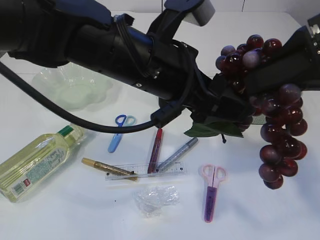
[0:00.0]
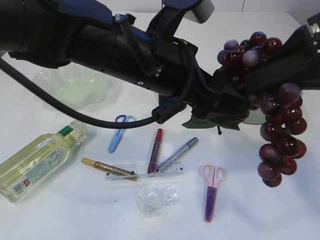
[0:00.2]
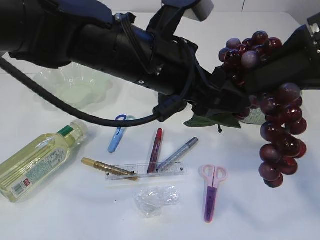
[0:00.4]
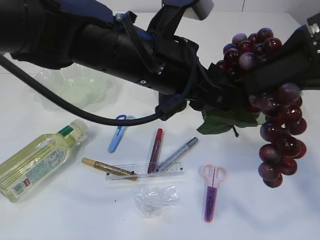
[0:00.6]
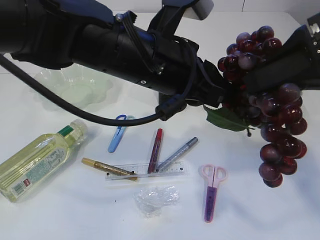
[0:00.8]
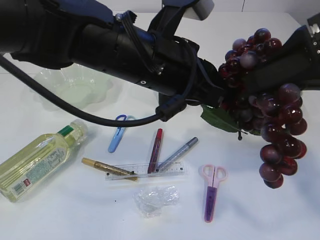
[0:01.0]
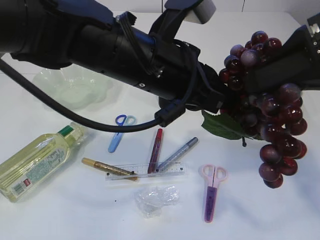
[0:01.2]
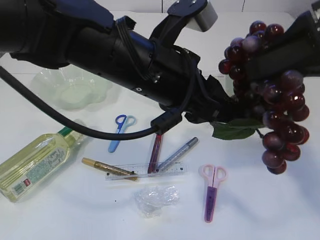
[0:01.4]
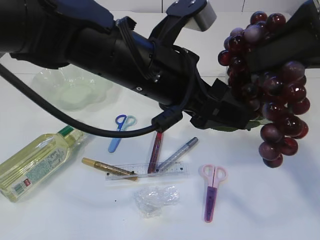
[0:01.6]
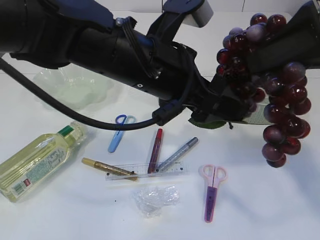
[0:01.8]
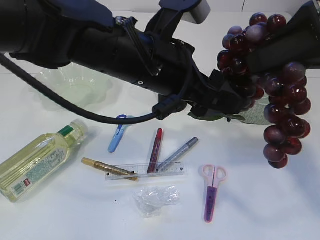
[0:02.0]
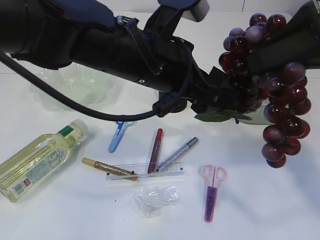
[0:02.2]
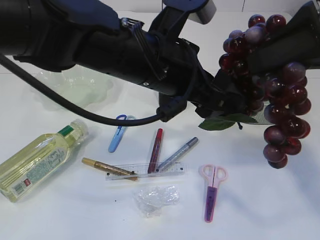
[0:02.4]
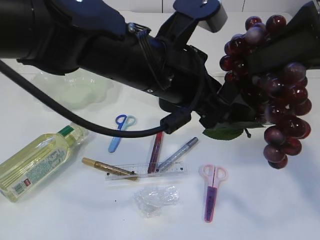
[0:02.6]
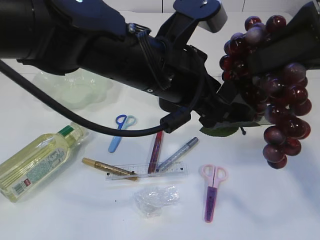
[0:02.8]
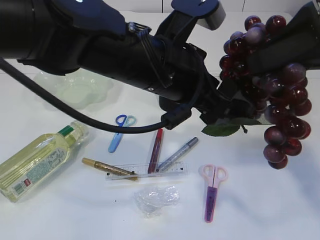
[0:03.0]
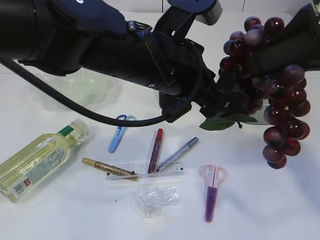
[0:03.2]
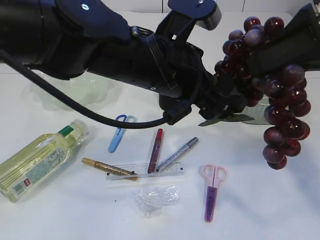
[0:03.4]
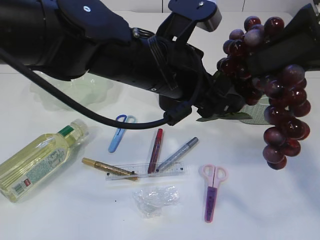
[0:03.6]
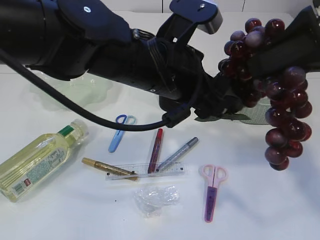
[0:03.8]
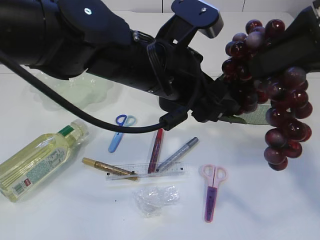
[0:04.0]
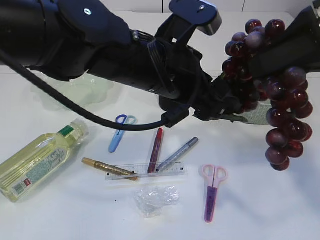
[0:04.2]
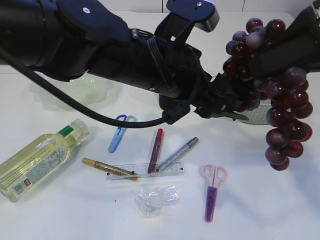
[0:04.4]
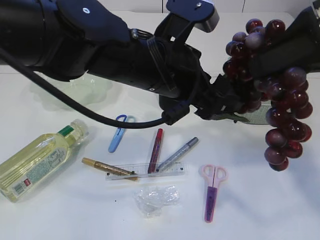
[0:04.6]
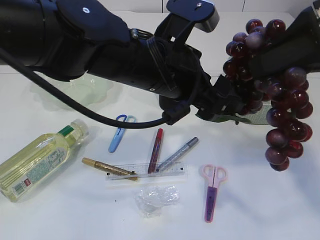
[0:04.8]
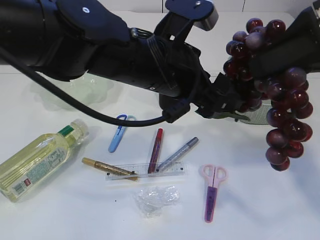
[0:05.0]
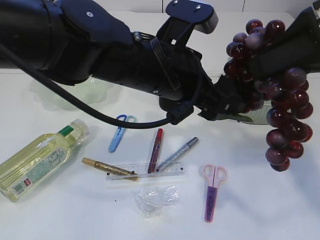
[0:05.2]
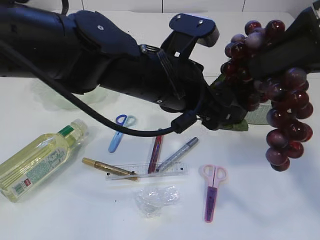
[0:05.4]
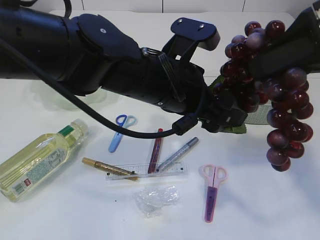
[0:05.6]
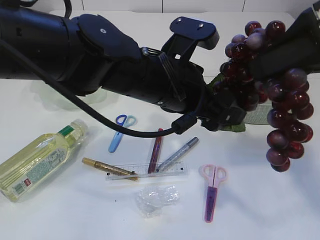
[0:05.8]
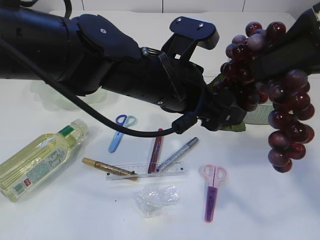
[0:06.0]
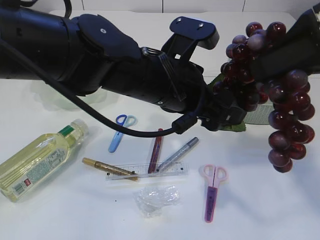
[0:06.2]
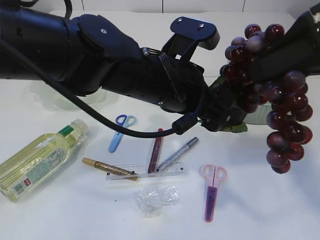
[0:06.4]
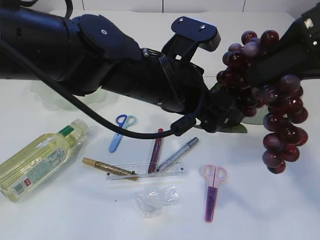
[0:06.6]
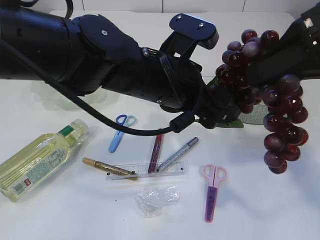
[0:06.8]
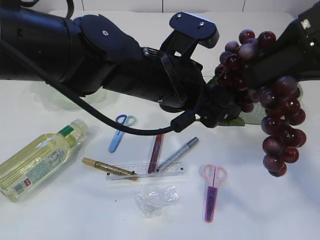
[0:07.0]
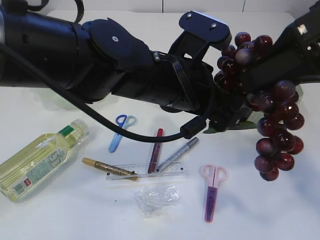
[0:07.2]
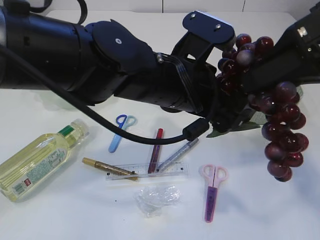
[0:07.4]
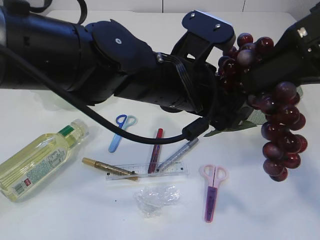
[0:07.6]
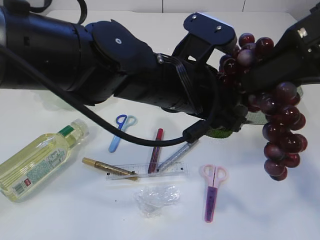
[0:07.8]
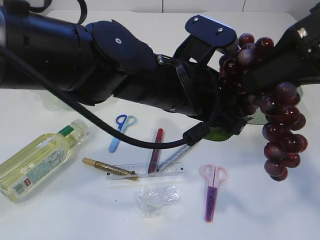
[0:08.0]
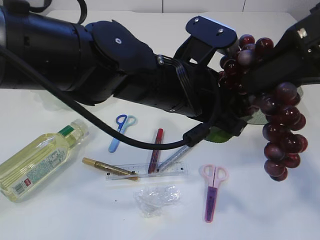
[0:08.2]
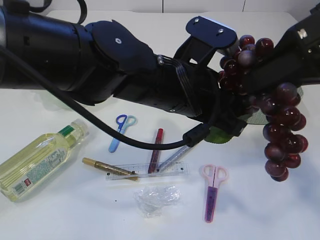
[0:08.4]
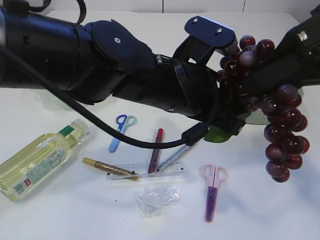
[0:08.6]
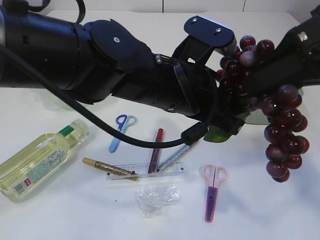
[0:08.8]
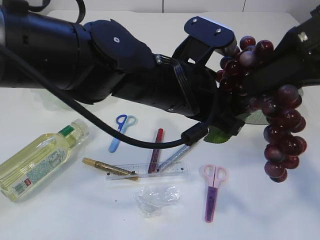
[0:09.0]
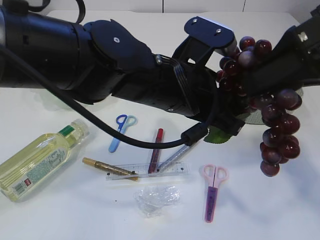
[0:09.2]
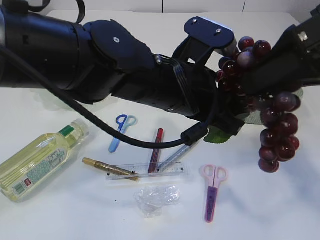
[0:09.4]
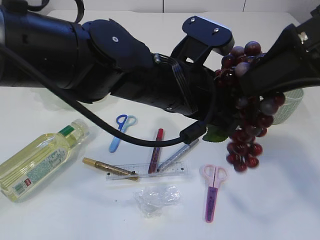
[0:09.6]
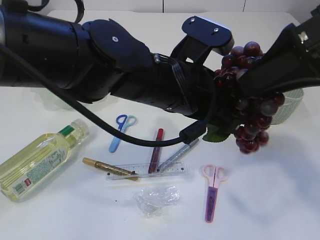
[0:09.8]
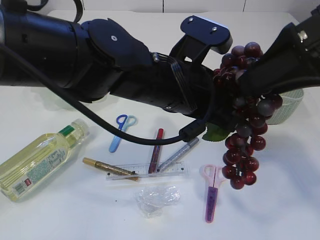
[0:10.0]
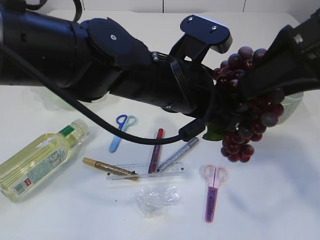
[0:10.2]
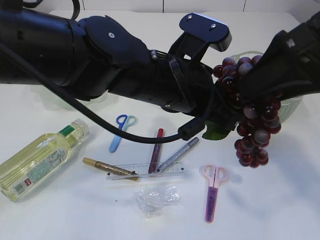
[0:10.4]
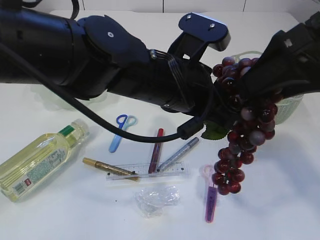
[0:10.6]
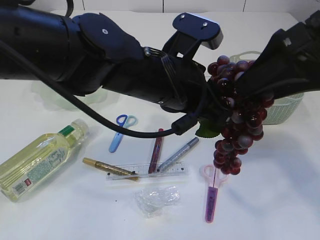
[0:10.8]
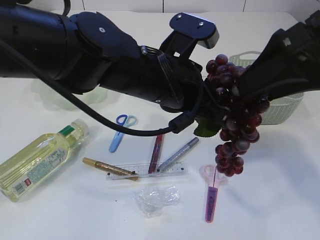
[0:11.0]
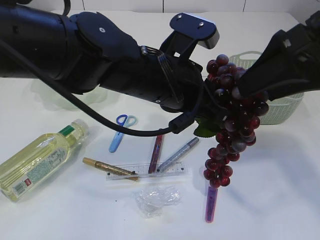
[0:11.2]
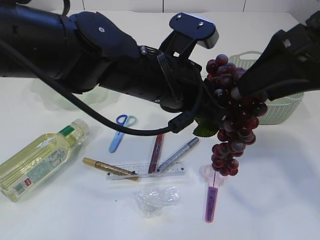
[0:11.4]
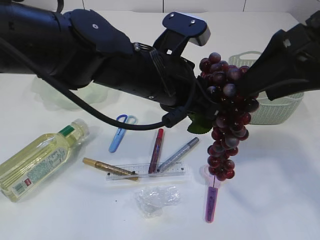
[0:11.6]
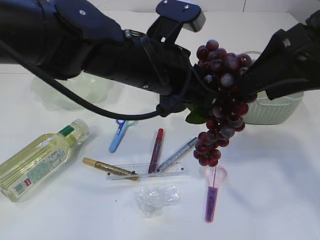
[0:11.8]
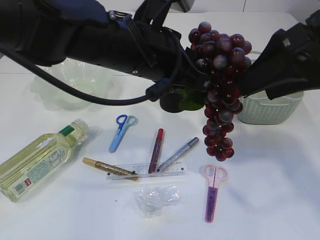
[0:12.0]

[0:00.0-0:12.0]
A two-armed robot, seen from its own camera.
0:00.0 to 0:01.6: The left gripper closes, then reopens.
0:01.6 to 0:07.6: There are only small adjustments of the grippers.
0:07.6 to 0:09.0: The left gripper closes up.
0:09.0 to 0:10.4: The right gripper opens.
0:10.4 to 0:12.0: The left gripper changes place by approximately 5 cm.

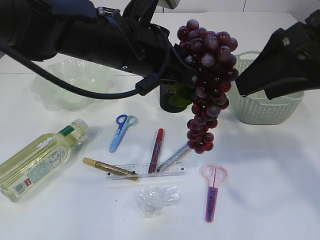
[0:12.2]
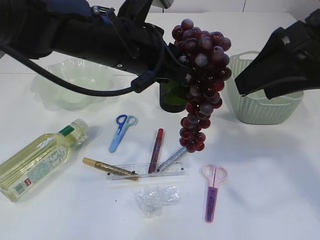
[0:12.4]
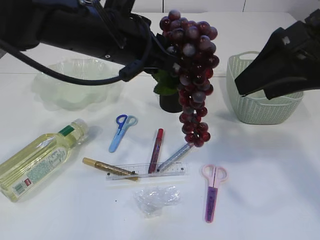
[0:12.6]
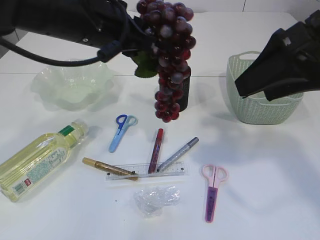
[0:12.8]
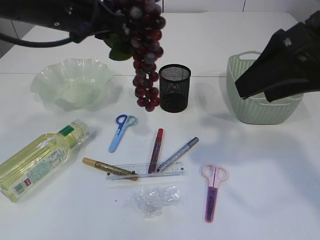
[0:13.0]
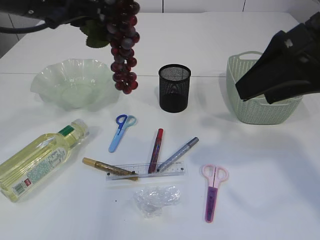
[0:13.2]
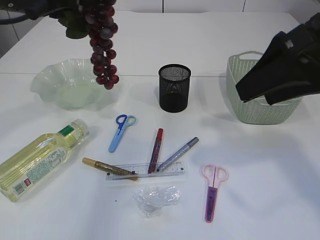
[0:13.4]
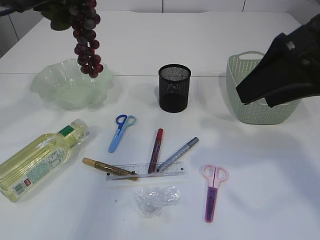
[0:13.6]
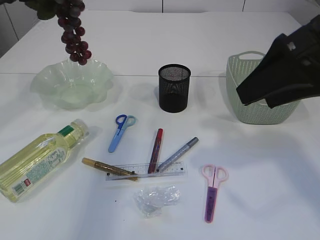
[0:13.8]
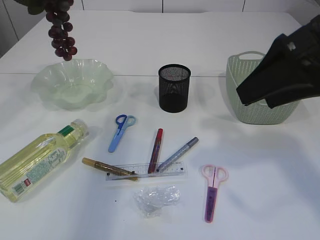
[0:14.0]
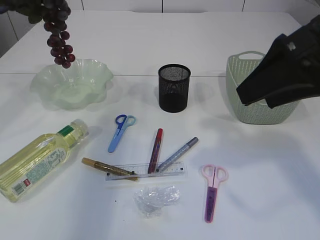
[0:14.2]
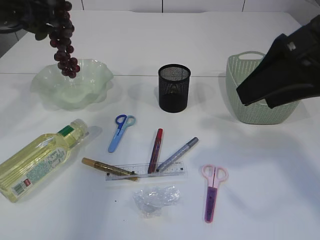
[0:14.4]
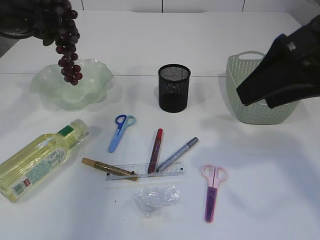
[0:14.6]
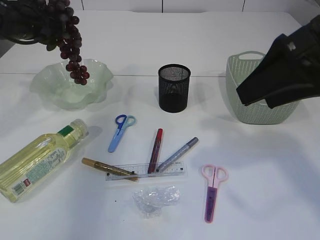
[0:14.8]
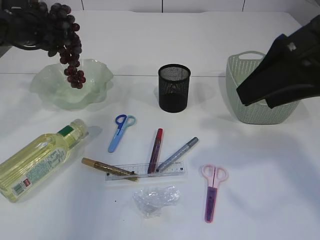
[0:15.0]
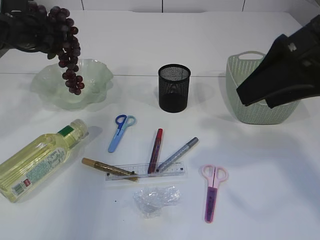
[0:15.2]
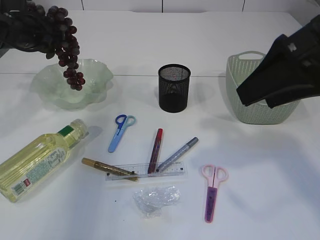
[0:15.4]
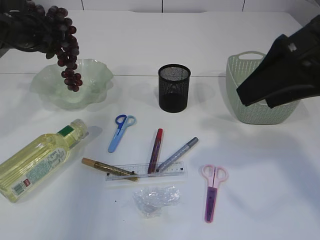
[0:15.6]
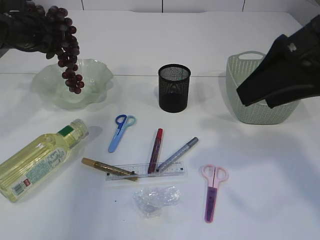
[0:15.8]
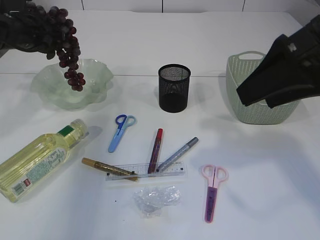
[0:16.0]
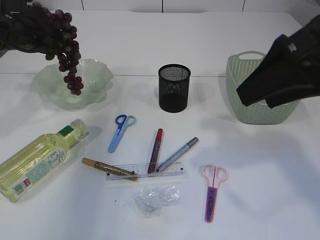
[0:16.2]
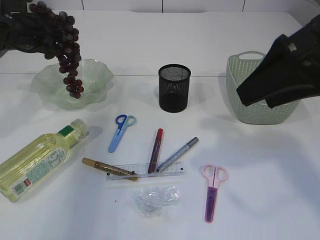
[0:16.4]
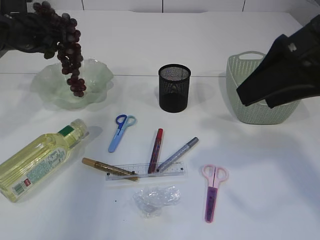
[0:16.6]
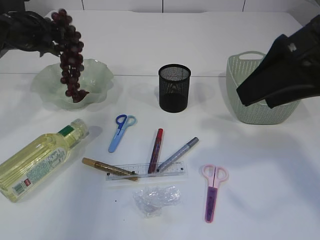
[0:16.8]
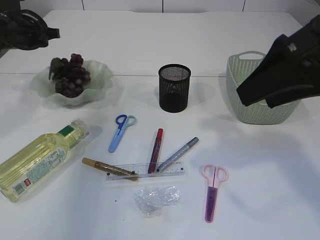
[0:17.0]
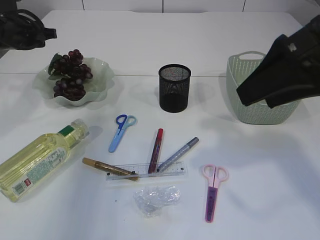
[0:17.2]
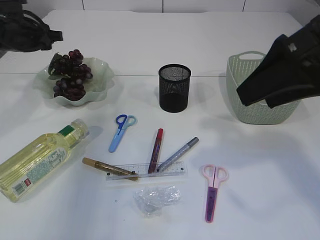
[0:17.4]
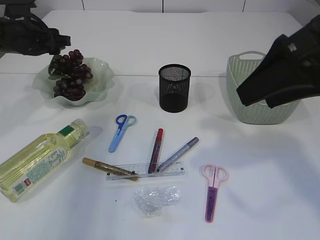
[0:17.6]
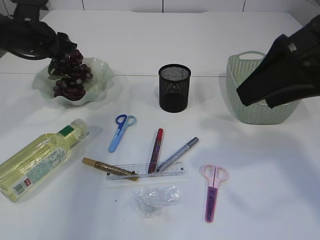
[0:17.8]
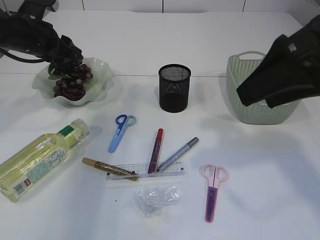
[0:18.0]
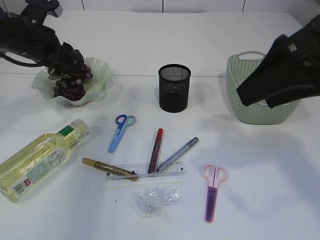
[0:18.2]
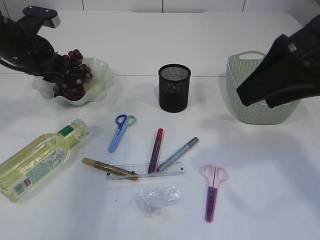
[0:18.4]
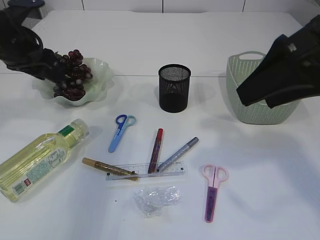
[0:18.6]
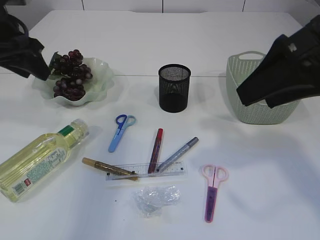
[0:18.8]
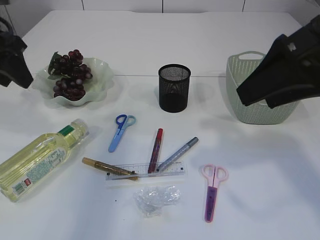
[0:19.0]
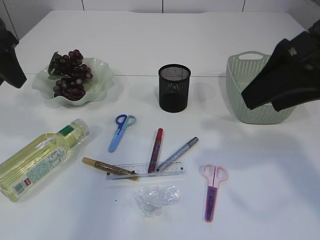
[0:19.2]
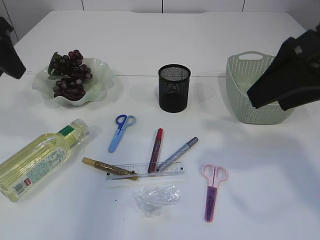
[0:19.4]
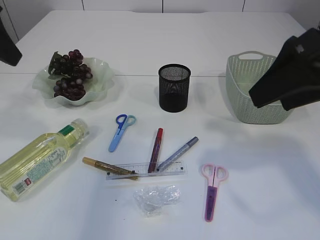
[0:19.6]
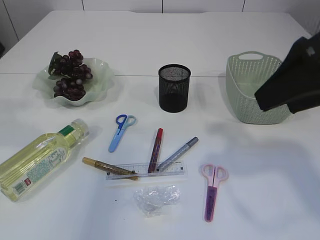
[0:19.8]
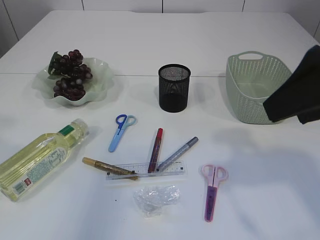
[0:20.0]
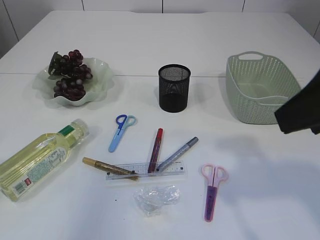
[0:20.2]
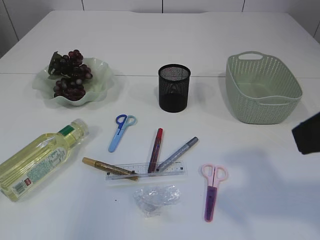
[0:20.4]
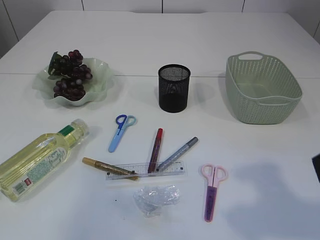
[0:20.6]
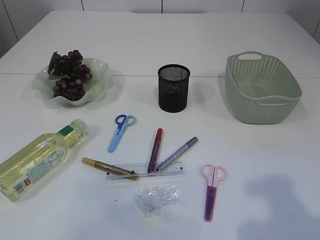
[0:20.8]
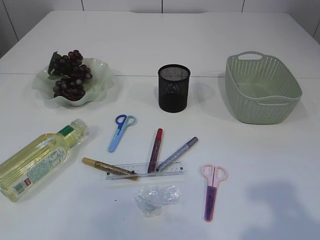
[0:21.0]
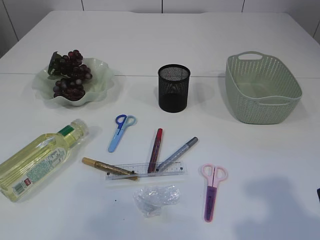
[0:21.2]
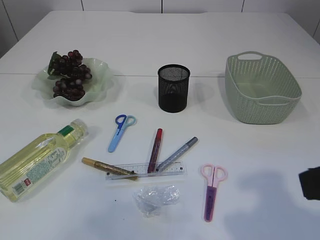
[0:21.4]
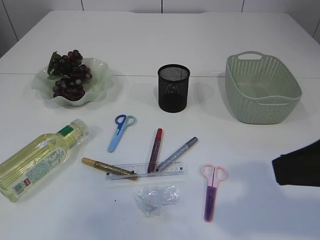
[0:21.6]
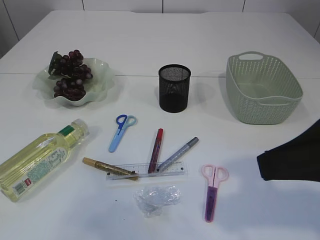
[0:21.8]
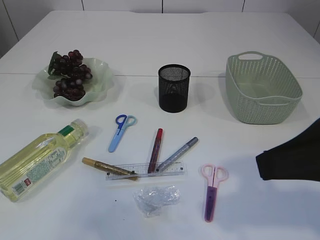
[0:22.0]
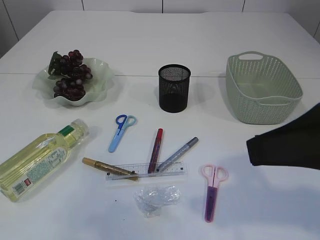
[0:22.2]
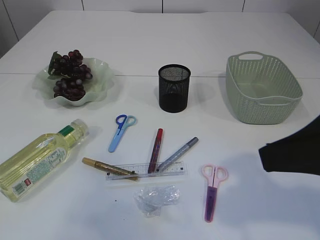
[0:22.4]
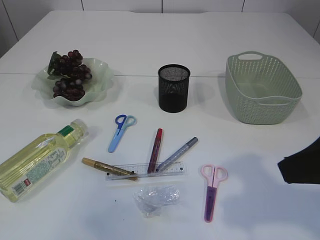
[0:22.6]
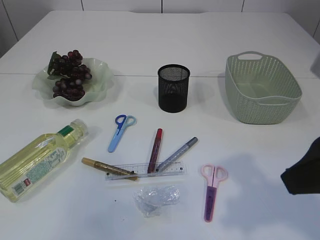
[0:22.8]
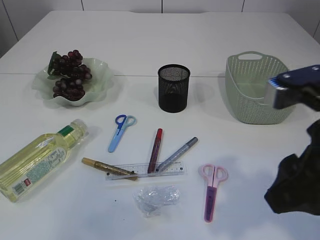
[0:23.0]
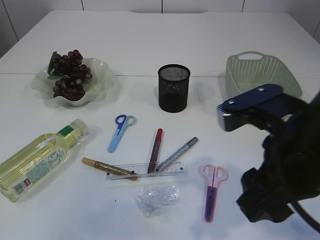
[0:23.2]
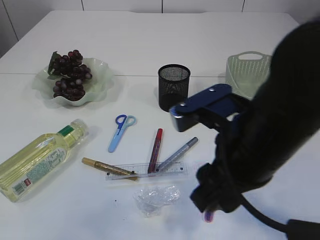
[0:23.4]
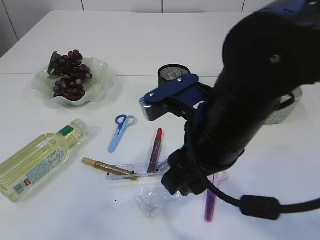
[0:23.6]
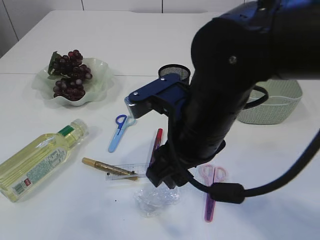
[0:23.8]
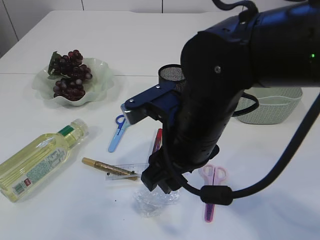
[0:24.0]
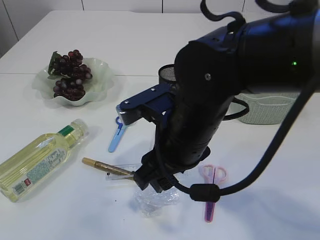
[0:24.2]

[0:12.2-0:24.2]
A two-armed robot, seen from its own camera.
Step, 0:12.2 to 0:18.8: Place the grapes in the plate.
0:12.2 to 0:13.8: The left gripper shifts about 20 cm to the left and forward.
0:13.8 to 0:15.2: The left gripper travels downward and forward by approximately 15 cm.
0:15.2 to 0:16.6: The left gripper opens.
0:18.2 to 0:19.8: The left gripper heads backward and upward, covering about 25 cm.
0:19.8 to 0:21.2: The left gripper moves backward, about 20 cm, while the right gripper goes some 10 cm backward.
0:21.2 to 0:22.6: The right gripper goes some 5 cm forward.
0:22.6 to 0:24.2: The right gripper moves to the left, forward and downward, some 20 cm.
